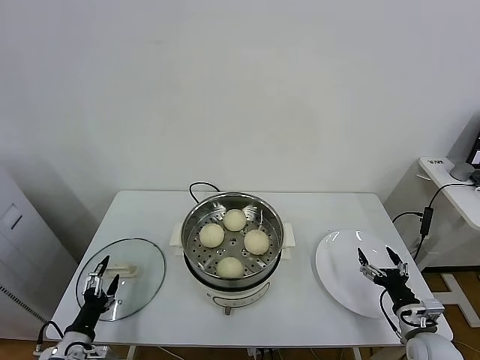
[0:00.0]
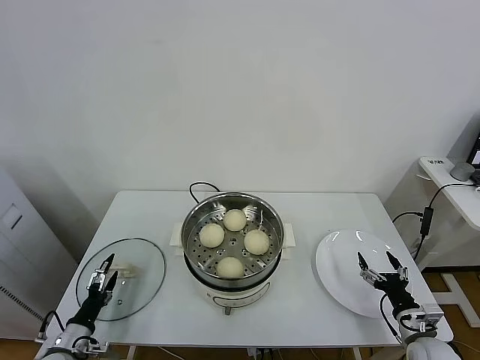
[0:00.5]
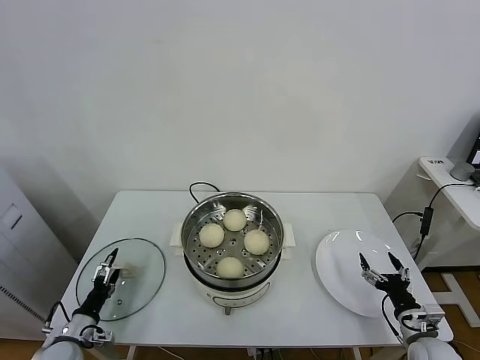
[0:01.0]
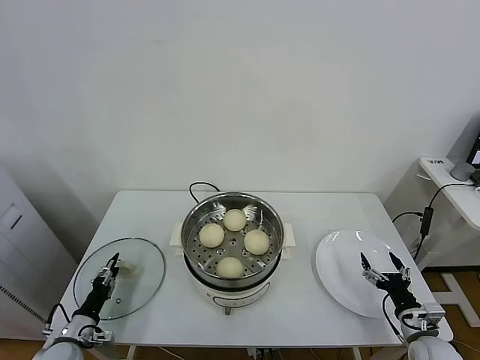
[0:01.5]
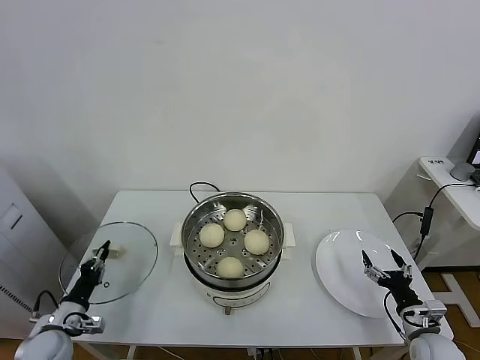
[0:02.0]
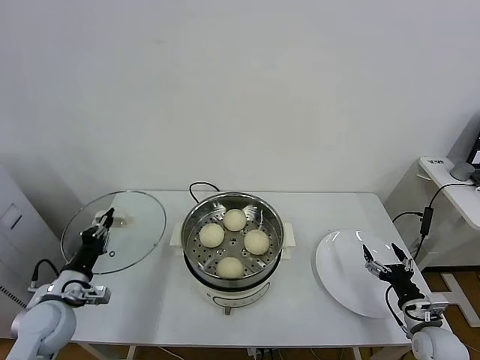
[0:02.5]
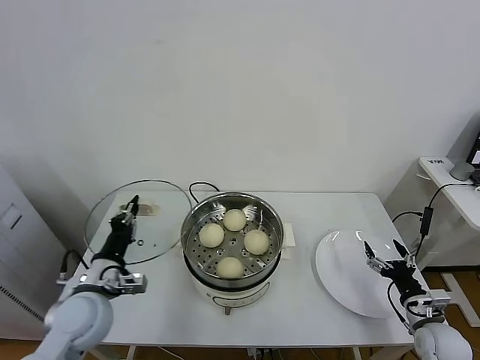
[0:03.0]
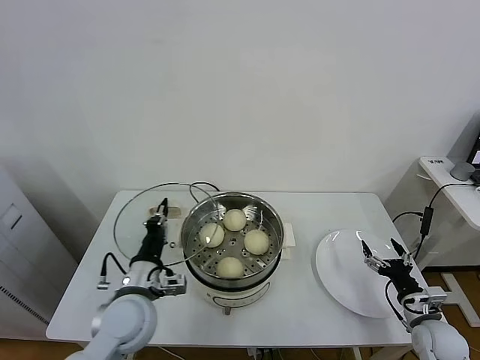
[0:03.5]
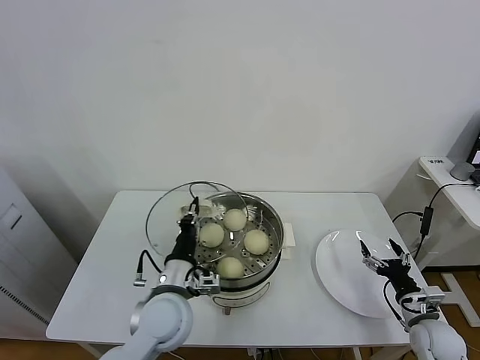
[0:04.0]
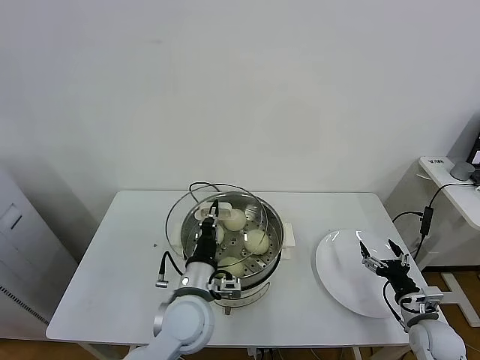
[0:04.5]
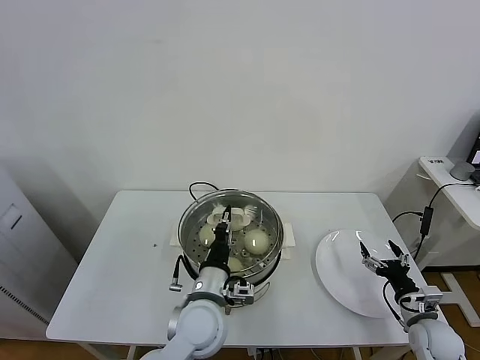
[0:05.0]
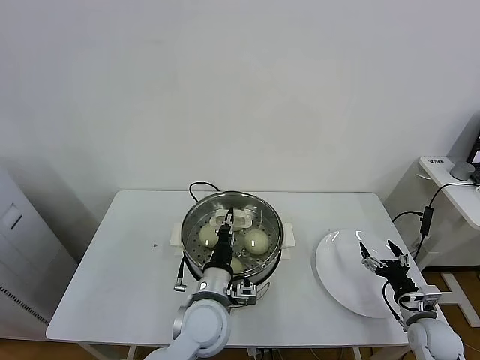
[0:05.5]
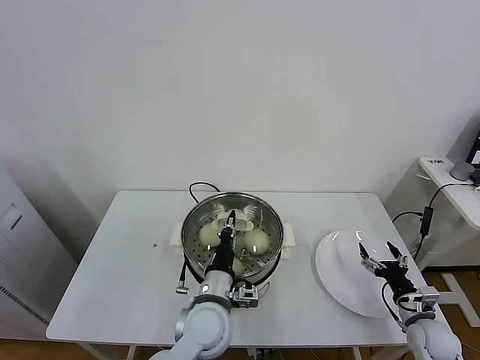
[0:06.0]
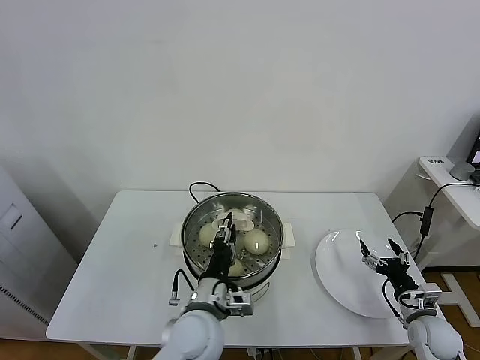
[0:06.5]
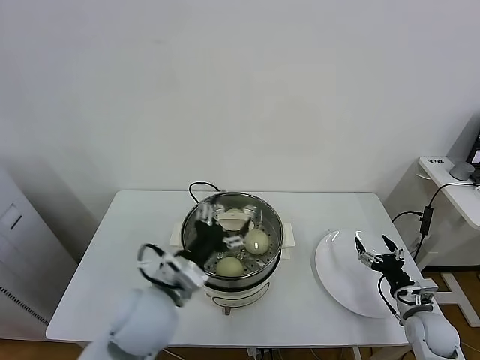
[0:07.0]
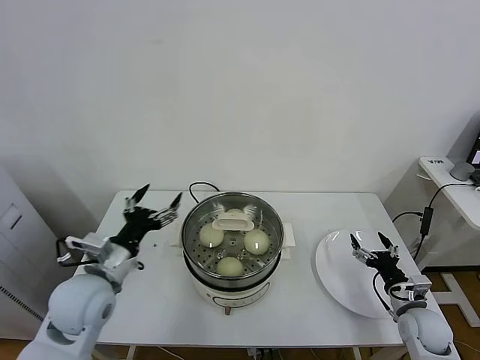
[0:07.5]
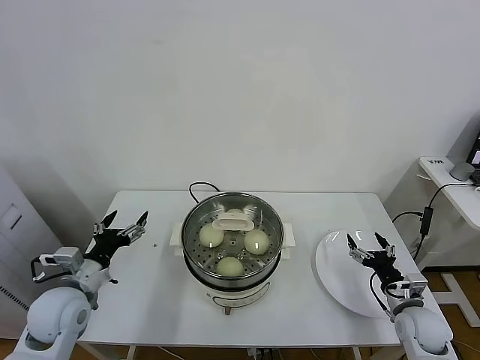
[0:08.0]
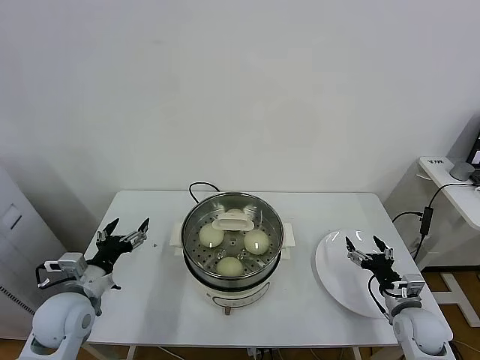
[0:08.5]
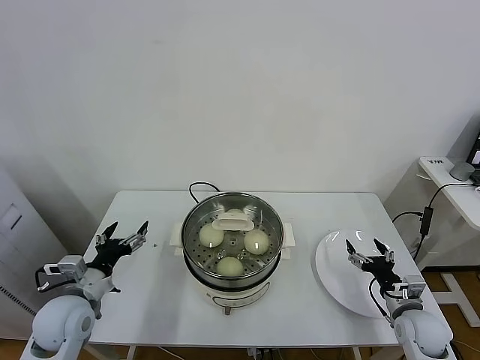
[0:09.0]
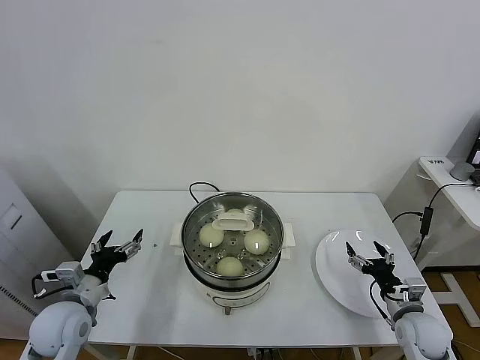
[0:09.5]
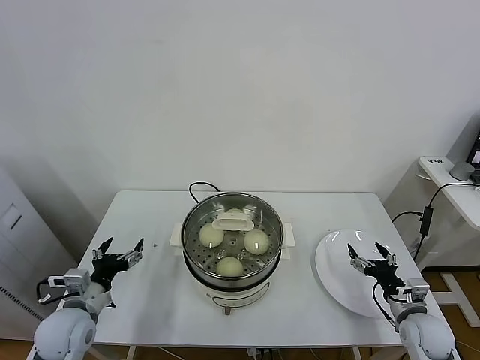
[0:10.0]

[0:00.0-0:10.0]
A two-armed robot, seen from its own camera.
Task of the whole recording: take steamed baozi put them in steamer.
Step, 0:00.0 to 0:02.0: Grasp the pot lid with left gripper.
Step, 0:02.5 to 0:06.5: Place the pot lid on the steamer with left gripper.
0:00.0 to 0:02.0: The left gripper travels forward by approximately 5 cm, and closes its fingers.
0:02.0 to 0:04.0: The left gripper is displaced to the right and upward by some 30 cm.
0:04.0 to 0:06.0: The left gripper travels to the right by some 10 cm.
0:06.0 to 0:08.0: The left gripper goes about 25 cm to the left, and opens its fingers.
0:08.0 to 0:10.0: The left gripper shifts some 5 cm downward.
